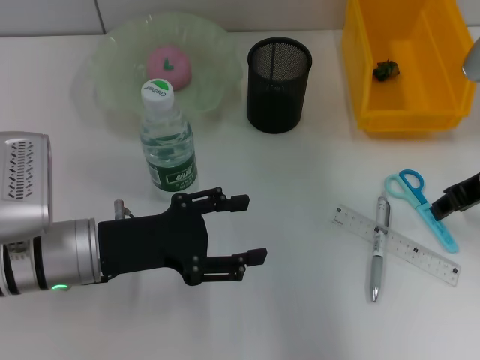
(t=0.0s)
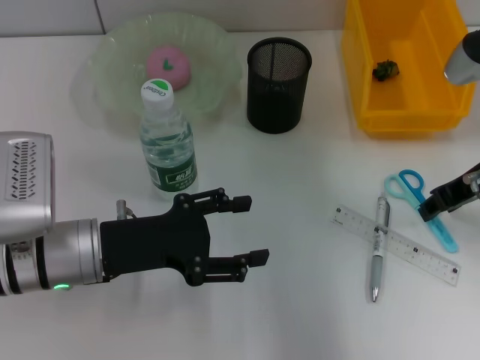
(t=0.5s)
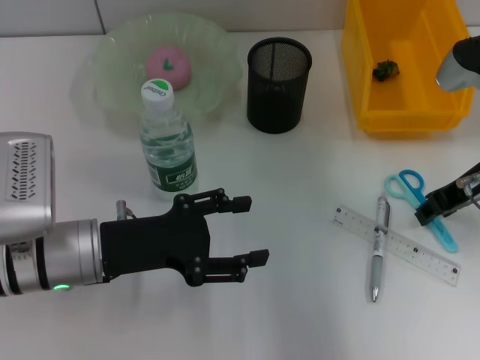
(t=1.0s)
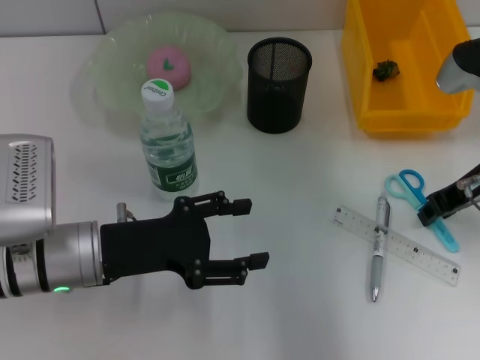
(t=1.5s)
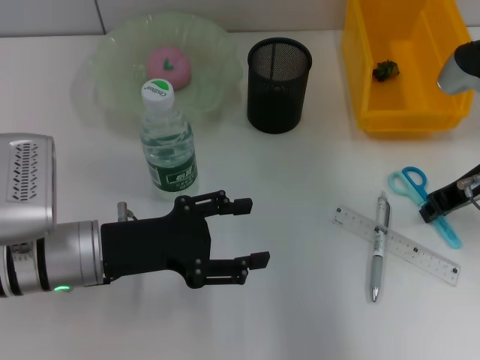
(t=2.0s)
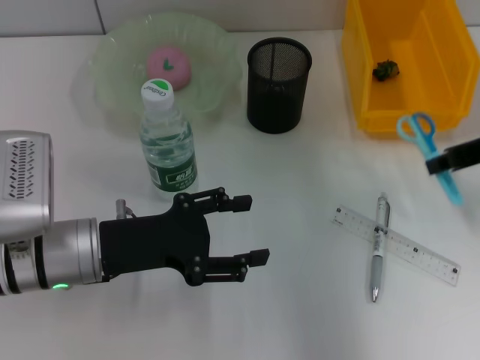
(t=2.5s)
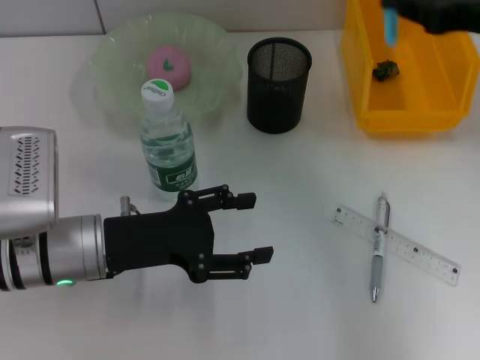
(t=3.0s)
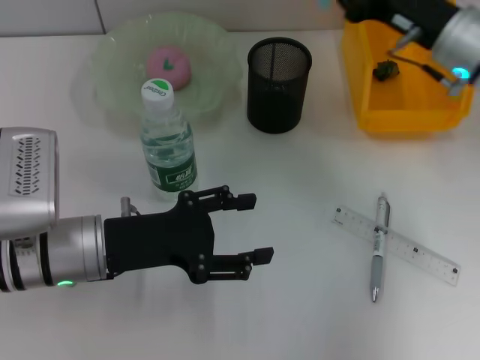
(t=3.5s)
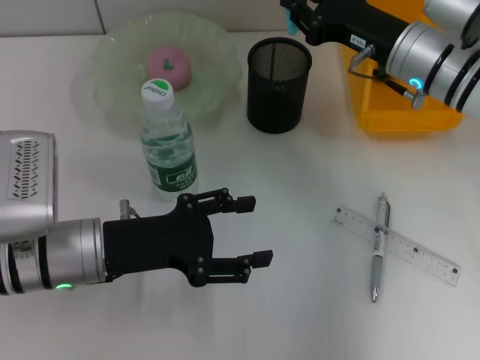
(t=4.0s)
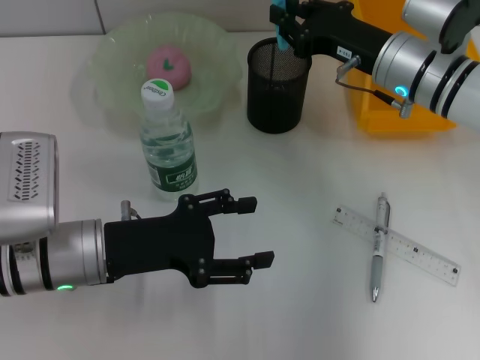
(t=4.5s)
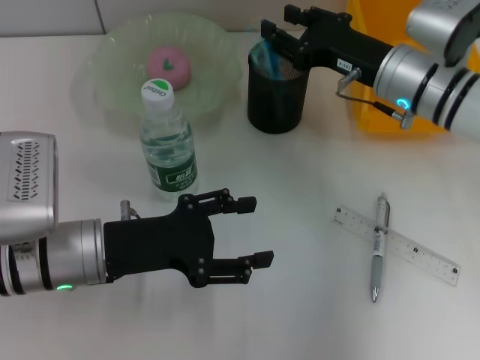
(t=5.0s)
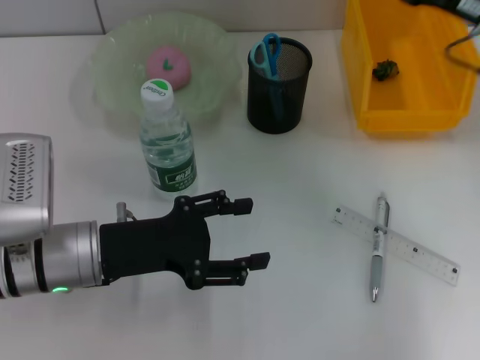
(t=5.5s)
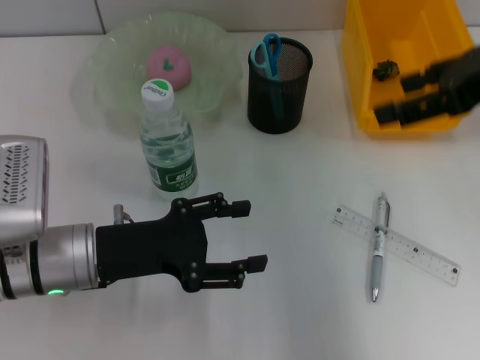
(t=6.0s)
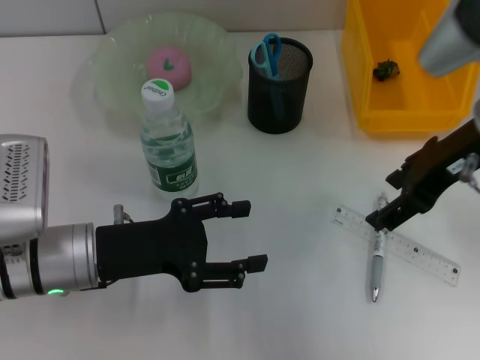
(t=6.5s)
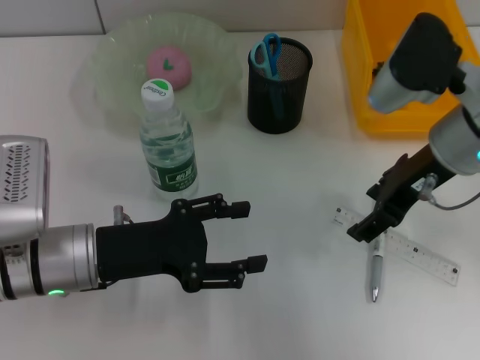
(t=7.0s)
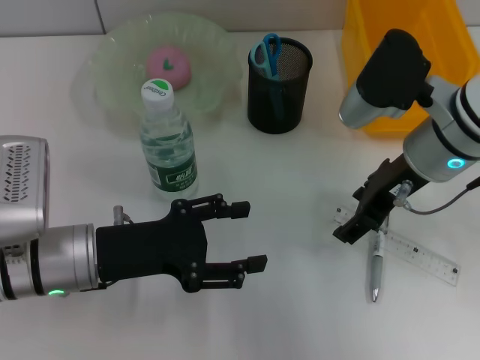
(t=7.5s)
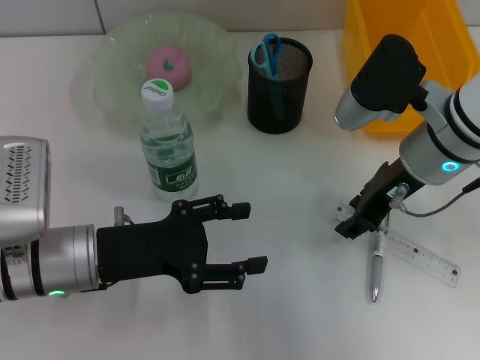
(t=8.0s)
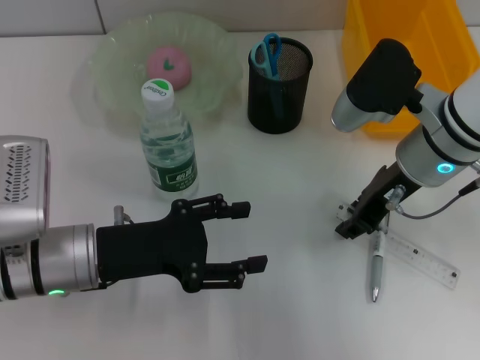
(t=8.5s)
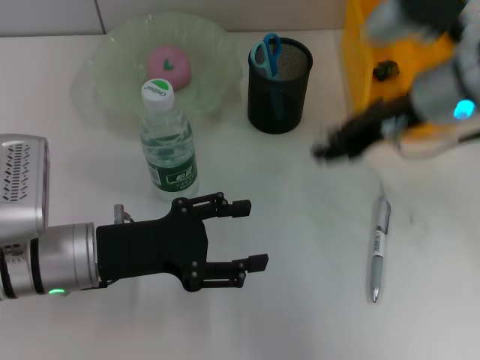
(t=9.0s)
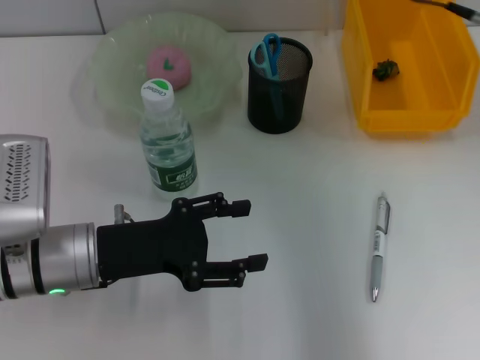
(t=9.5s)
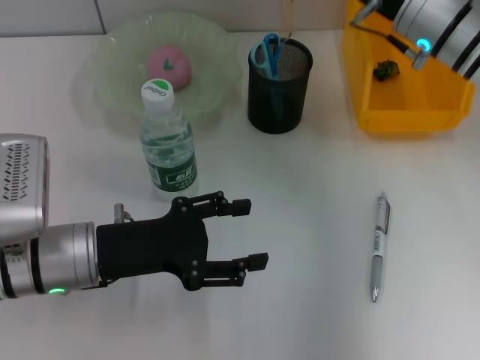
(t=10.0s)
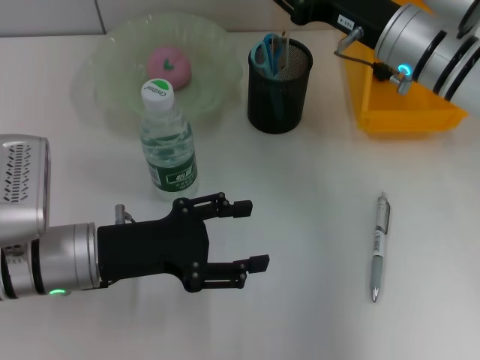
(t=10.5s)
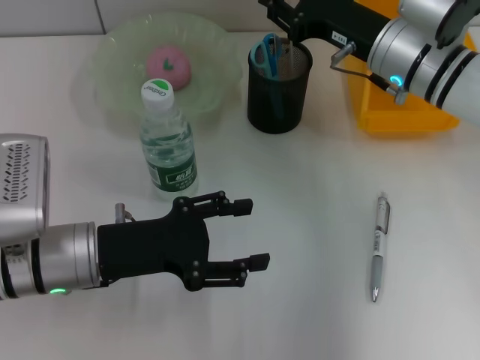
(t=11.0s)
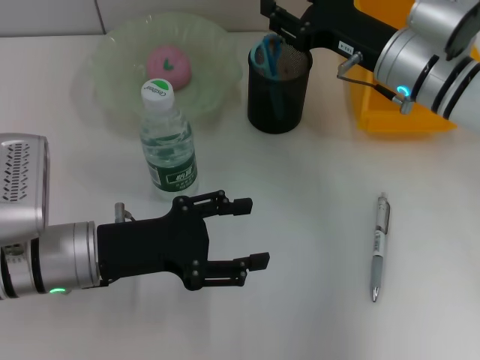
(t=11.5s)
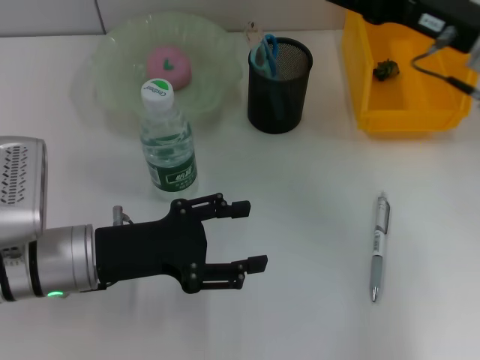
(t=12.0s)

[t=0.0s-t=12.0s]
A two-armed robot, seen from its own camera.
Step, t=0.0s to t=2.0s: Grab the blue scissors with the right hand.
Step, t=2.5s to t=5.0s: Place the blue scissors into the pen holder with the right hand.
Step, t=6.0s to t=8.5s: Grab the ruler with the right hand.
Step, t=9.0s to t=11.0s: Place the ruler into the pen holder with the right hand.
t=0.0s to t=2.0s: The right gripper closes up.
t=2.0s to t=4.0s: The right gripper travels forward and to the left by roughly 10 cm, and moves approximately 10 cm upward and comes back.
t=4.0s to t=6.0s: The right gripper is displaced upward, backward and to the right by some 20 cm, and opens.
t=6.0s to t=8.0s: The right gripper travels downward and to the left by about 15 cm.
t=8.0s to t=10.0s: The right gripper goes roughly 5 cm forward, goes upward and returns, about 10 cm each way, and closes.
t=10.0s to t=12.0s: The right gripper goes approximately 5 cm backward, and opens.

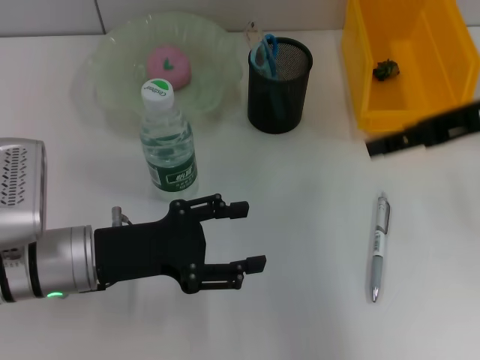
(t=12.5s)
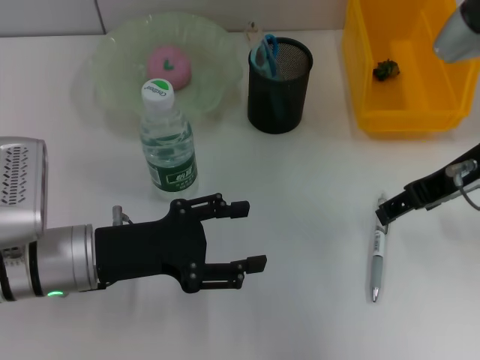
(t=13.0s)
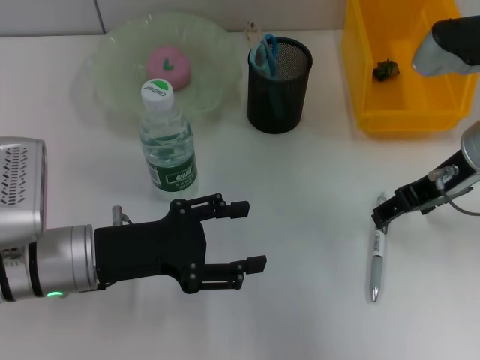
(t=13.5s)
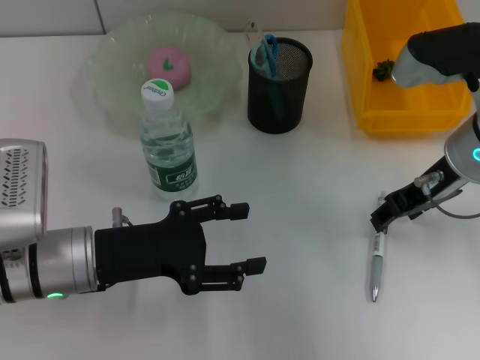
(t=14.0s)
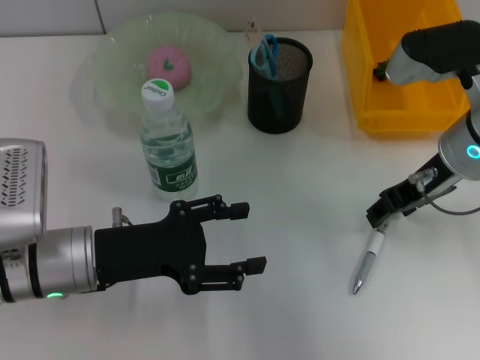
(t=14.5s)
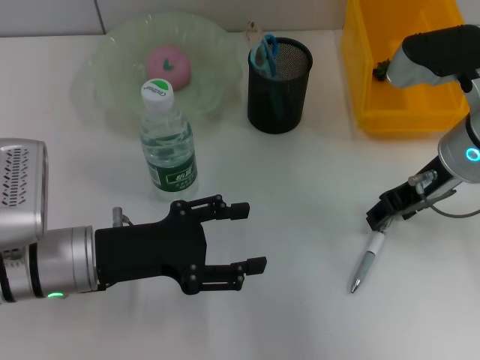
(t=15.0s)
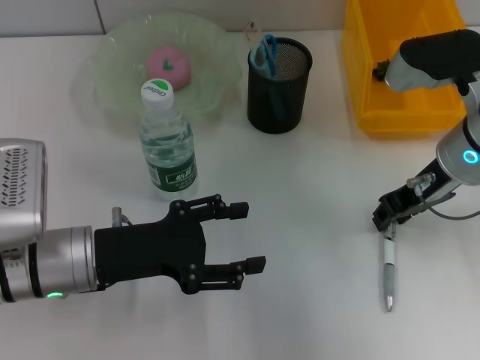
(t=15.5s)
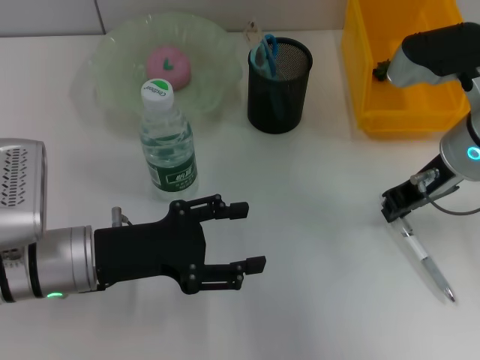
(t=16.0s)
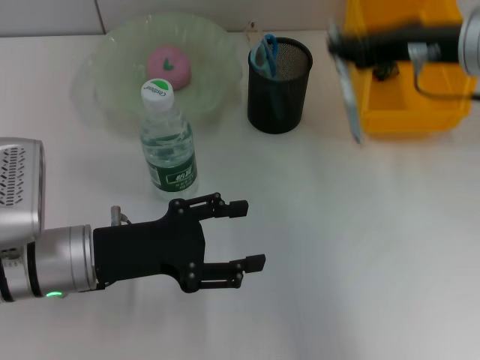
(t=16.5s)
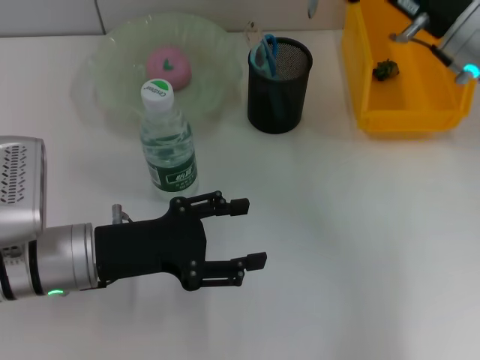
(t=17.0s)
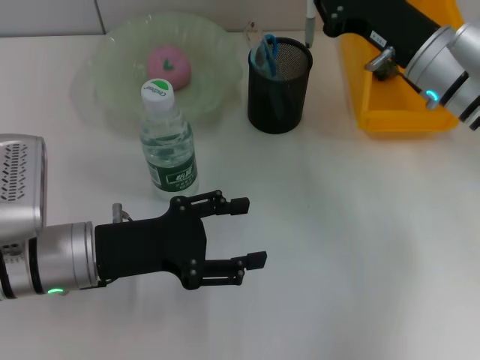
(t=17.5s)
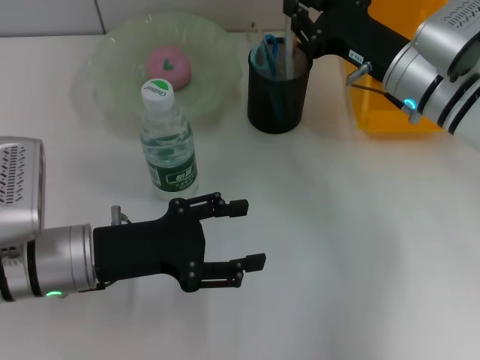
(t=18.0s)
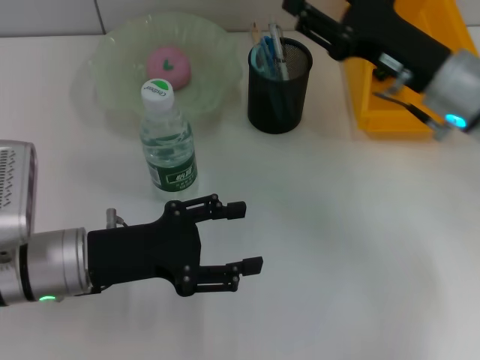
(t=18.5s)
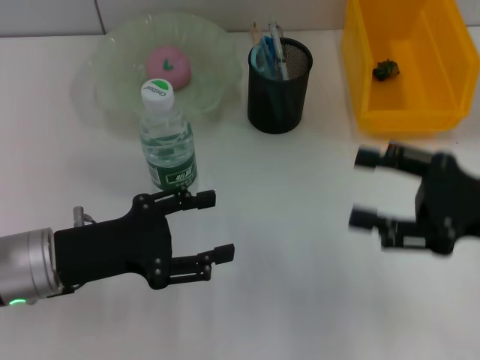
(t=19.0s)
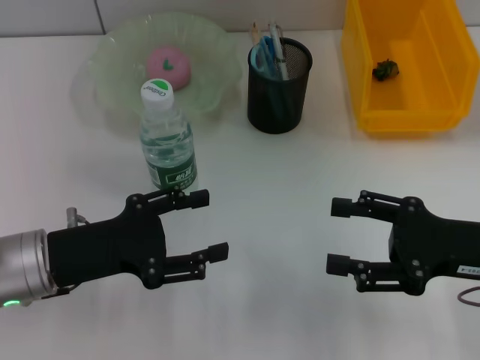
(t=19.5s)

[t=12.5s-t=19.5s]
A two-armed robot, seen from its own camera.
Step, t=12.5s to t=15.5s: Grab the gray spring-action pen with the right hand.
Step, t=16.0s to t=18.5s: Place the gray spring-action pen into the pen holder with the right hand.
t=12.5s to t=14.5s: The right gripper travels downward by about 10 cm, and closes its fingers.
t=14.5s to t=16.0s: The right gripper closes its fingers.
t=16.0s to t=17.5s: The right gripper reaches roughly 10 cm upward, then returns.
t=17.5s to t=19.5s: The right gripper moves backward and to the right, some 15 cm, and opens its fingers.
